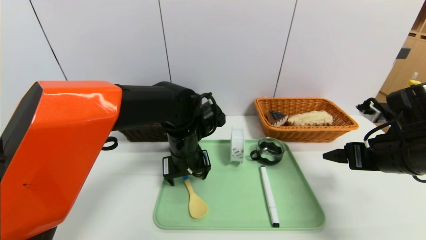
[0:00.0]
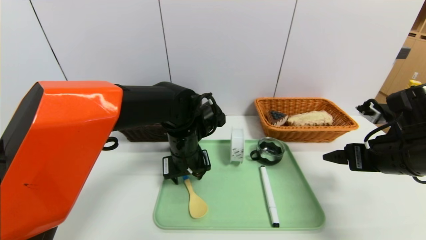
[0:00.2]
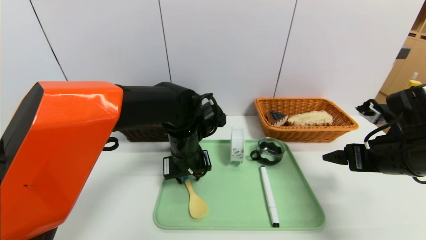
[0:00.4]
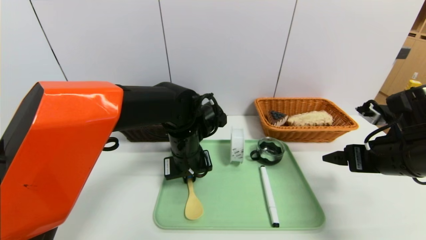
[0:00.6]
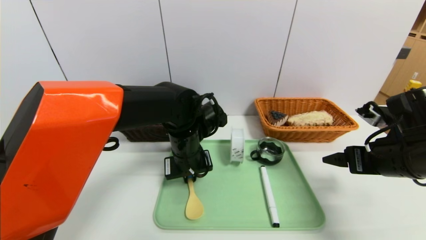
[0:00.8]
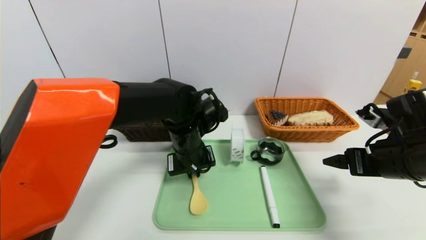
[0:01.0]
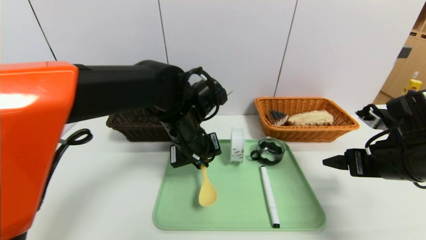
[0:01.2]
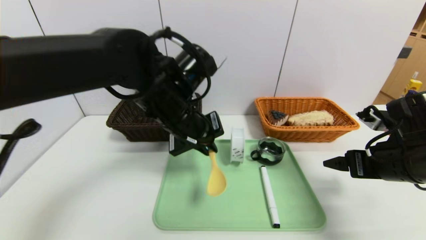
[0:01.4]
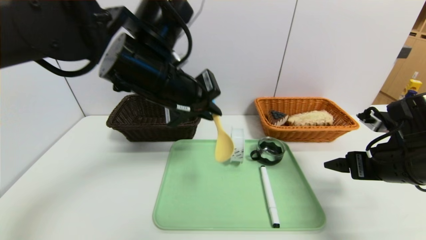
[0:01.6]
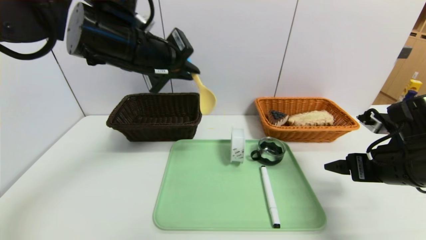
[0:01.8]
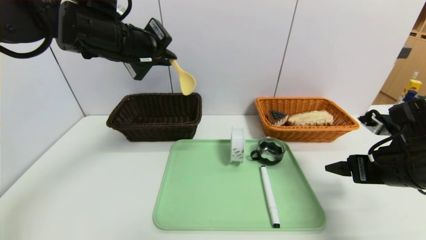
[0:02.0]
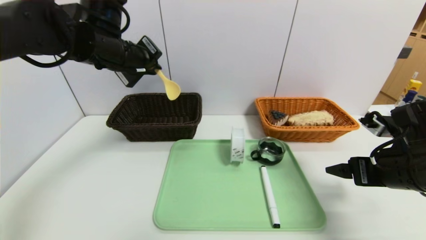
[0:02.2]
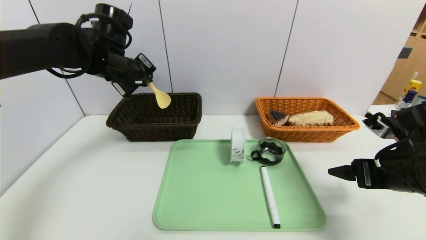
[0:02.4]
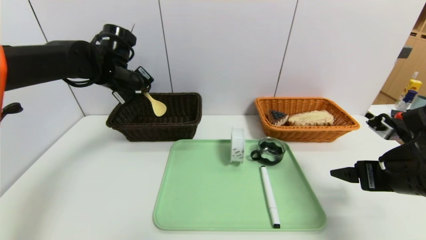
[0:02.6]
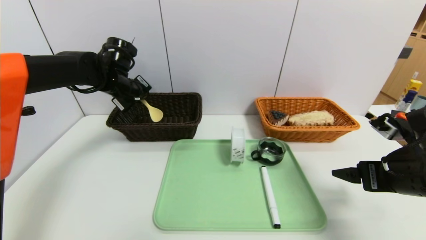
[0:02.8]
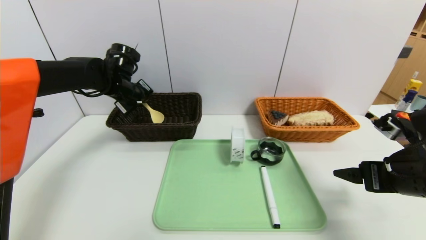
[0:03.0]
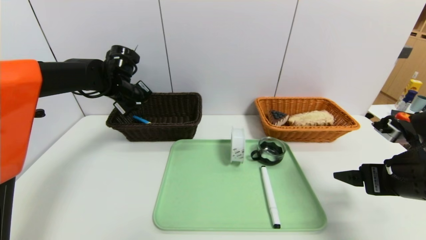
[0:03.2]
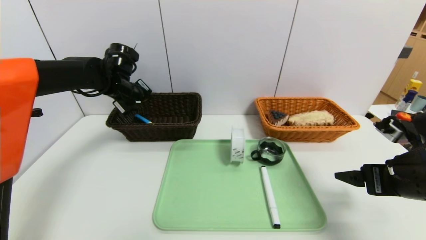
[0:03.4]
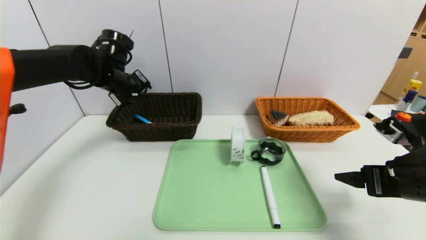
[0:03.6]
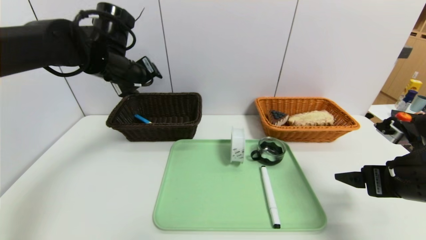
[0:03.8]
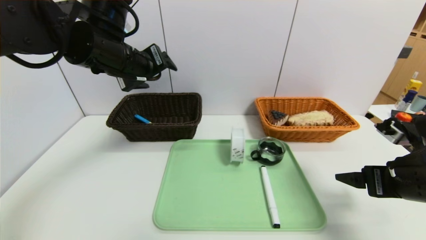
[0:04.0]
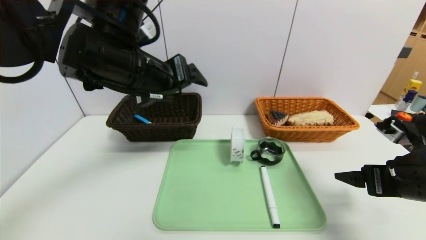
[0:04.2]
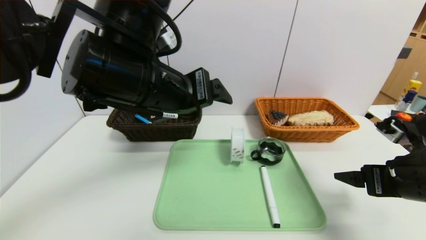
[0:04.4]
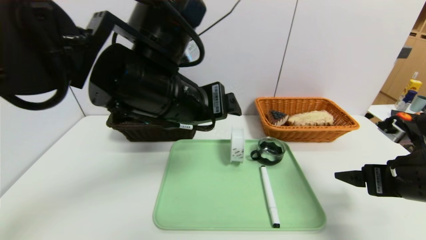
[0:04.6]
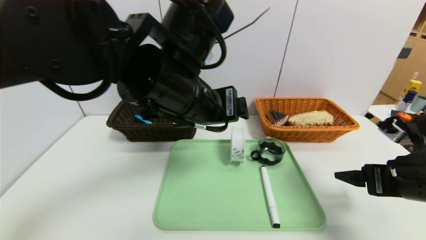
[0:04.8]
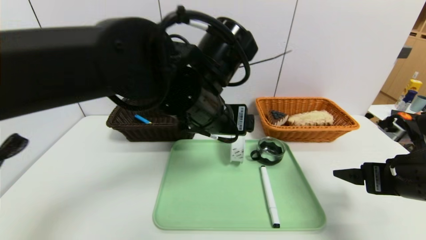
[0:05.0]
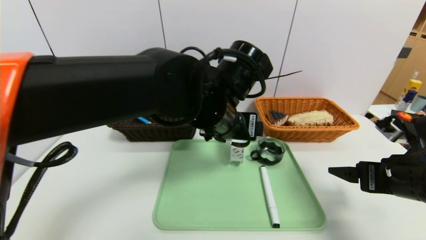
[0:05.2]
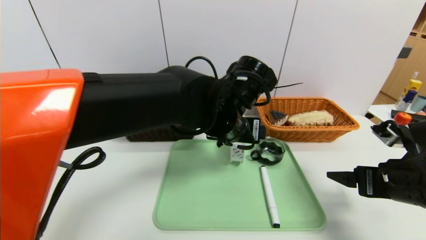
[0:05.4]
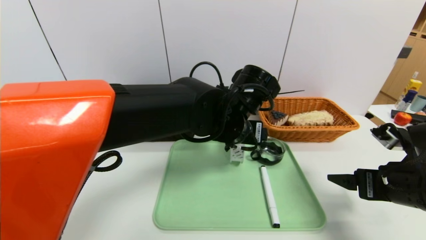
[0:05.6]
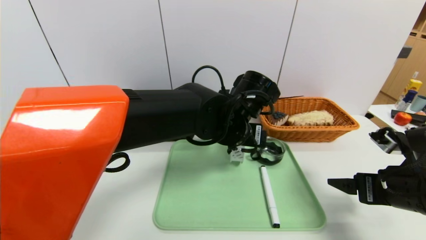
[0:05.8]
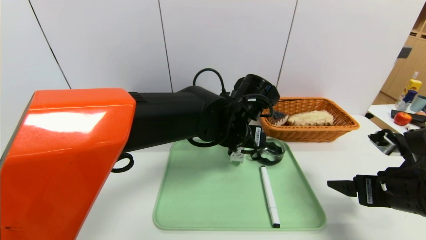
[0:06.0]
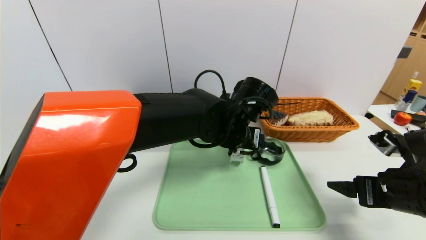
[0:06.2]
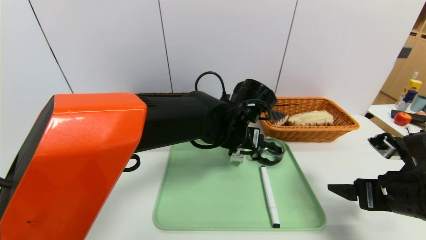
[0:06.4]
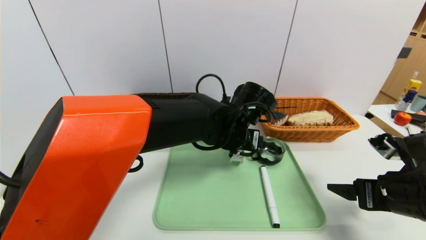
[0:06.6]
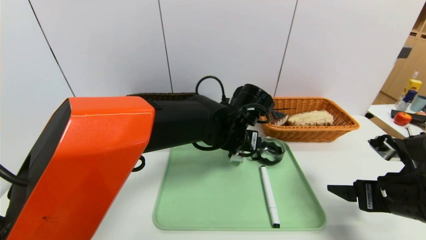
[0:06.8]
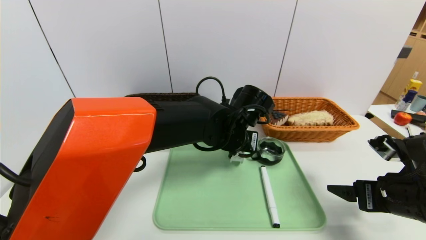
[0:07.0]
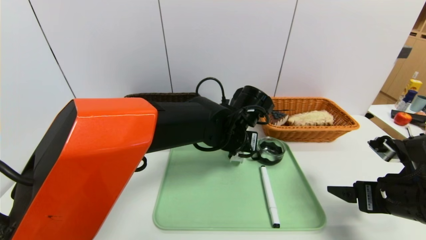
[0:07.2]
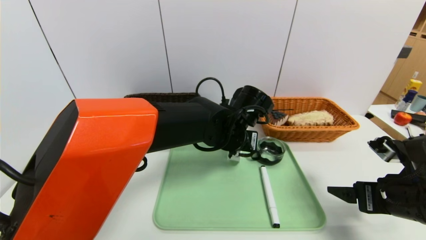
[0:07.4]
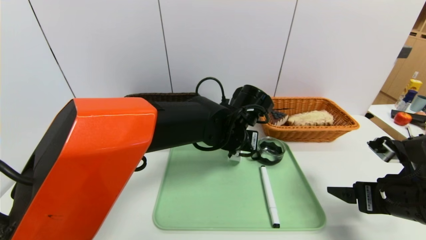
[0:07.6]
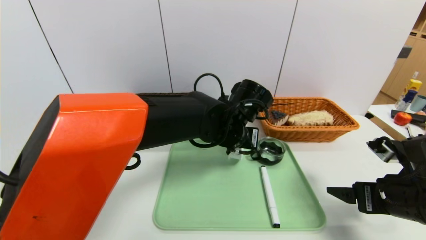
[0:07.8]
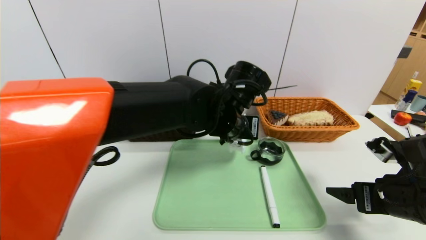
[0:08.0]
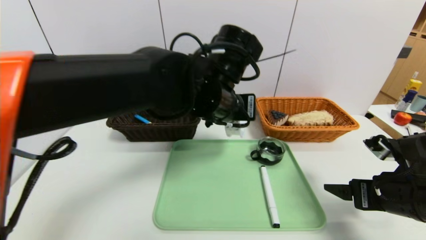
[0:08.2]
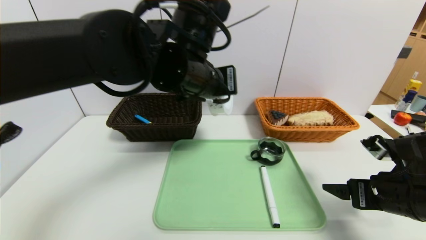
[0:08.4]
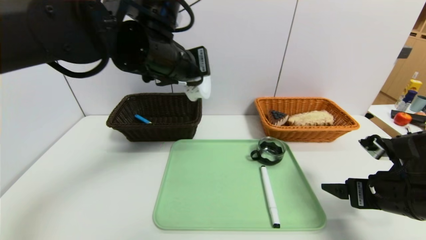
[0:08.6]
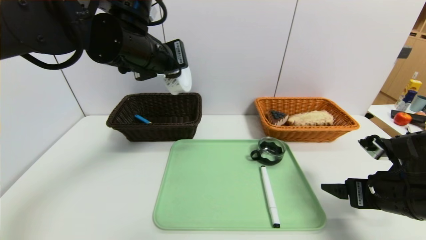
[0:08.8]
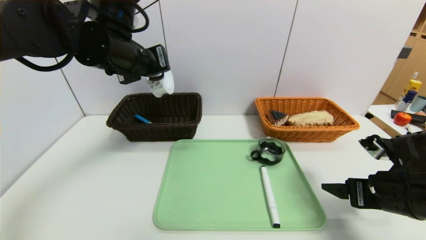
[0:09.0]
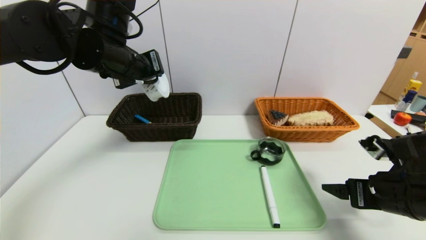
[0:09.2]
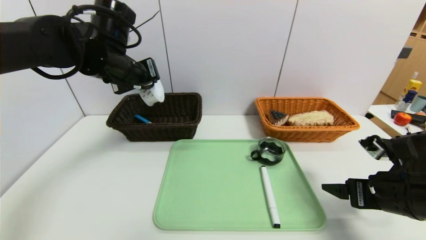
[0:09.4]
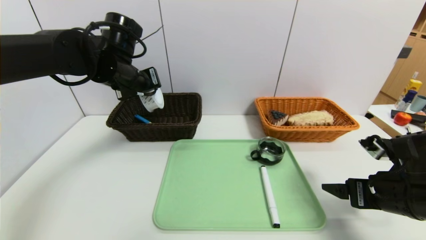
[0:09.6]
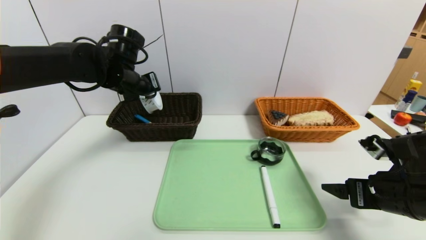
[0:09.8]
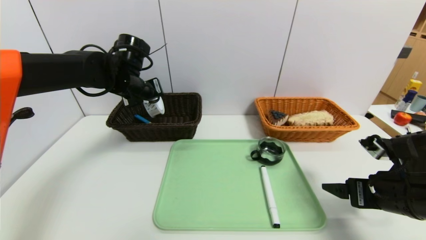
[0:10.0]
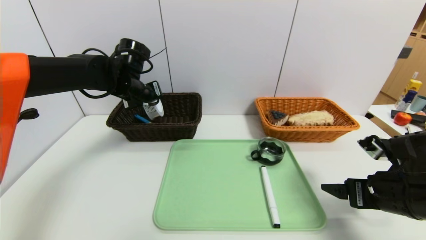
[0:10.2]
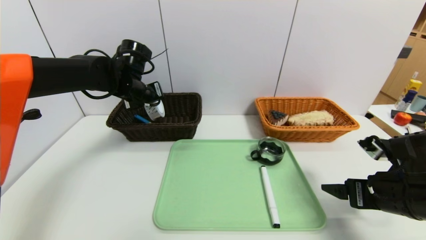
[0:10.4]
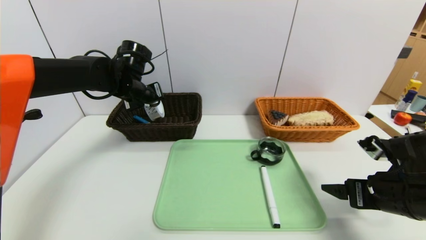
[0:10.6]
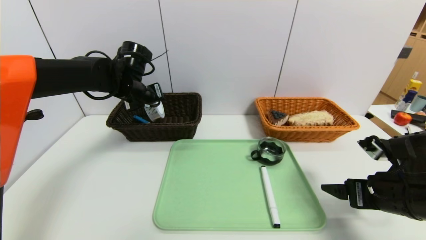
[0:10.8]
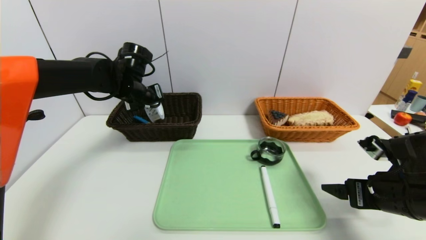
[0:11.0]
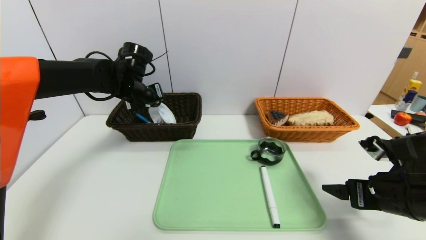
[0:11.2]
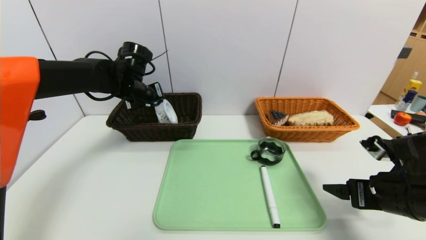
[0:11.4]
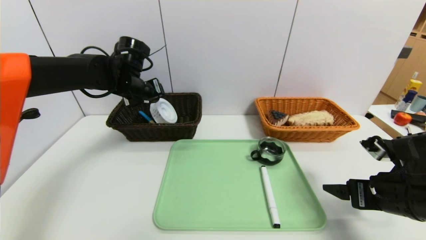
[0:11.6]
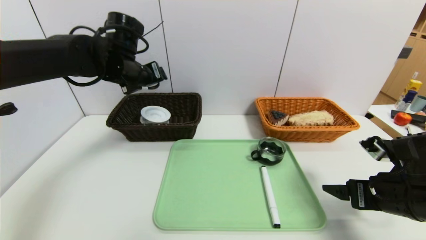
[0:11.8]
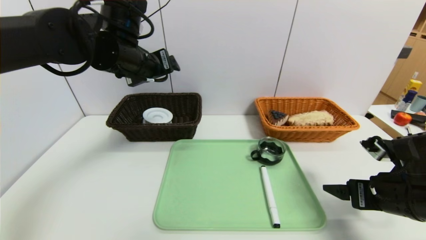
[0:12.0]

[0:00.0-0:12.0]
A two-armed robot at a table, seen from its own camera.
Task of the whole recording: place the food in the right basket with the right gripper, and place the non food items in the left basket with the left gripper.
Step, 0:00.0 to 0:03.2: Grasp the spoon and put it in the left basket.
Step, 0:03.4 to 0:11.8: Grasp the tape and put it in the left basket.
0:00.0 to 0:01.6: The left gripper is displaced upward by approximately 15 cm, and closes its fingers.
0:01.6 to 0:03.0: The left gripper is displaced forward, to the left and downward by approximately 25 cm.
0:03.0 to 0:04.4: The left gripper goes approximately 25 cm backward, to the right and upward, and opens its fingers.
0:04.4 to 0:06.0: The left gripper shifts about 20 cm to the right, downward and forward.
0:06.0 to 0:07.6: The left gripper closes its fingers.
0:07.6 to 0:09.0: The left gripper goes about 25 cm to the left and upward.
0:09.0 to 0:10.4: The left gripper heads forward and downward, covering approximately 15 cm.
0:10.4 to 0:12.0: The left gripper is displaced upward and backward by about 10 cm, and opens.

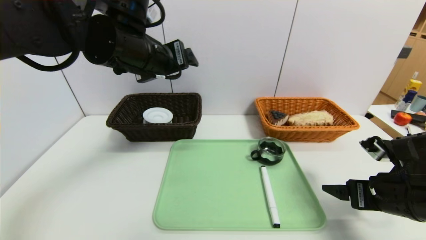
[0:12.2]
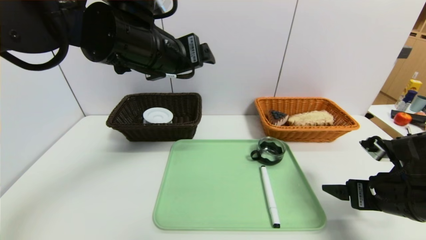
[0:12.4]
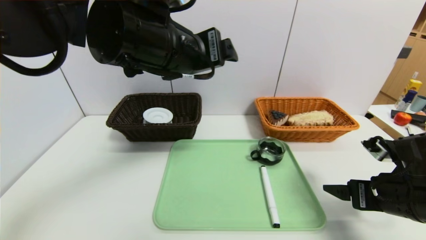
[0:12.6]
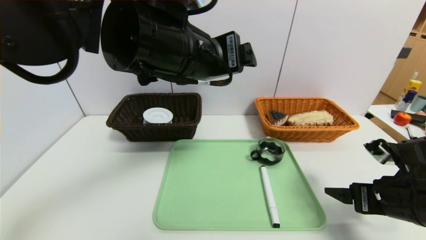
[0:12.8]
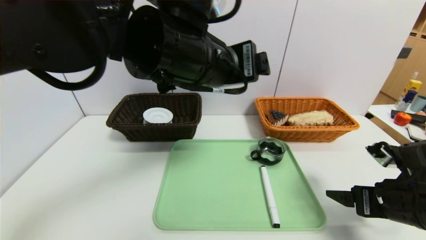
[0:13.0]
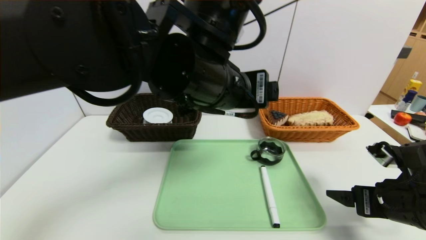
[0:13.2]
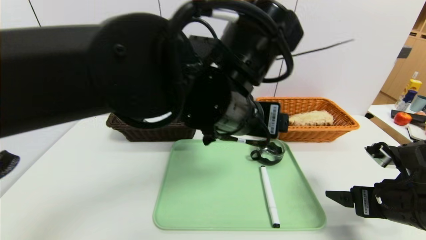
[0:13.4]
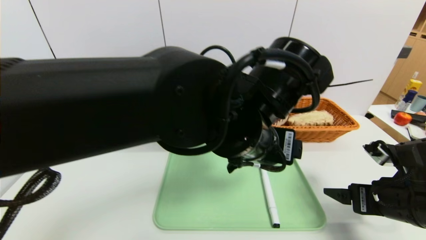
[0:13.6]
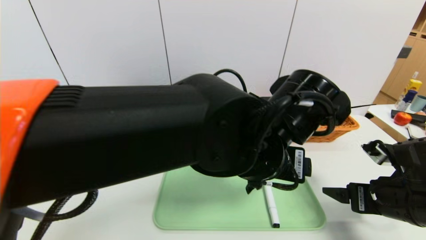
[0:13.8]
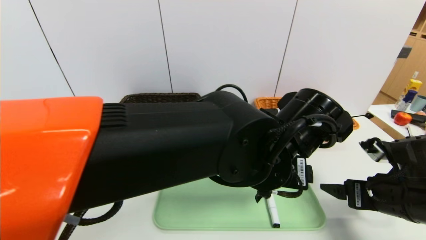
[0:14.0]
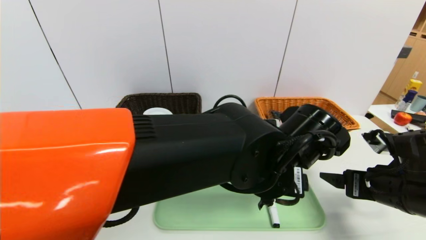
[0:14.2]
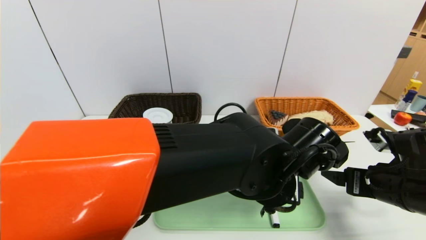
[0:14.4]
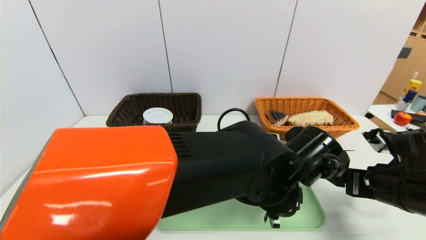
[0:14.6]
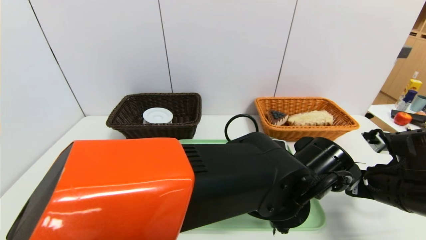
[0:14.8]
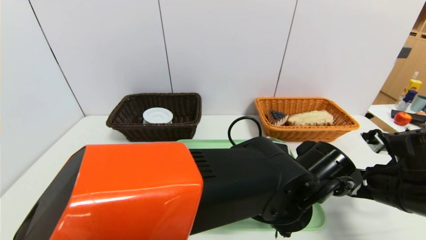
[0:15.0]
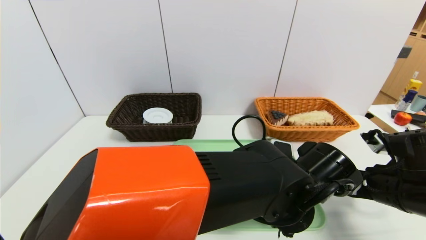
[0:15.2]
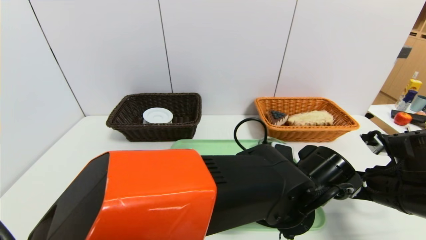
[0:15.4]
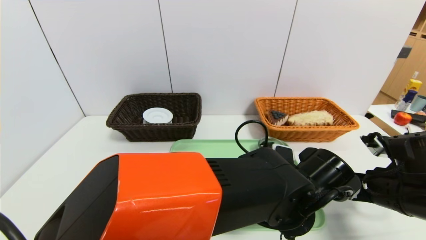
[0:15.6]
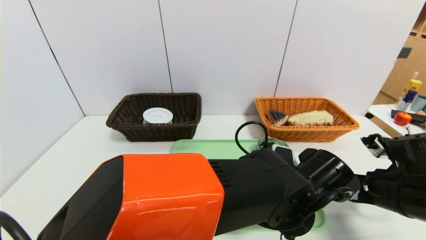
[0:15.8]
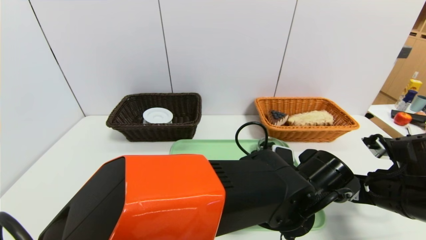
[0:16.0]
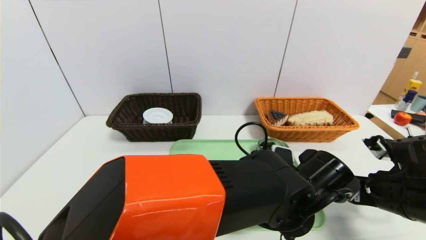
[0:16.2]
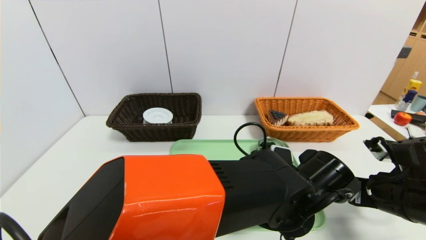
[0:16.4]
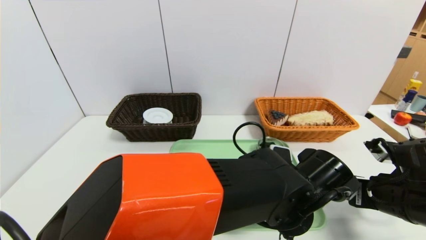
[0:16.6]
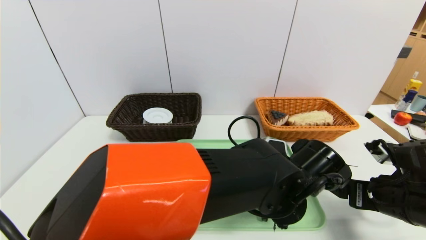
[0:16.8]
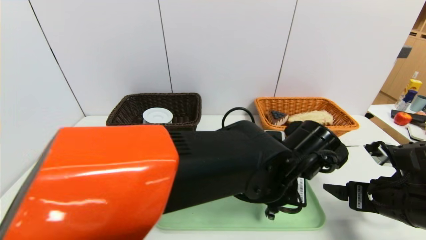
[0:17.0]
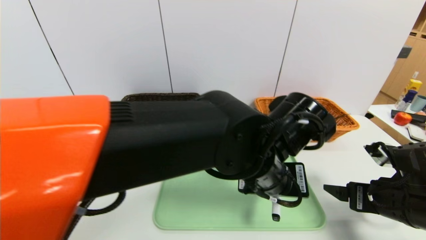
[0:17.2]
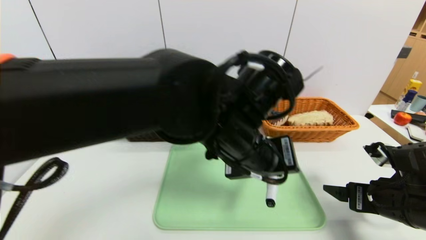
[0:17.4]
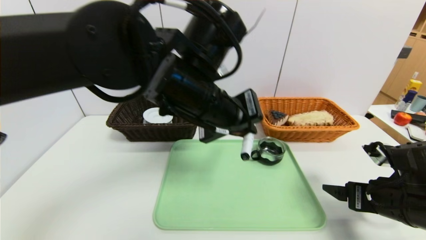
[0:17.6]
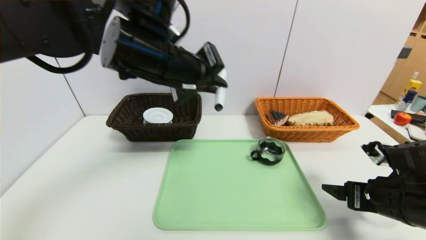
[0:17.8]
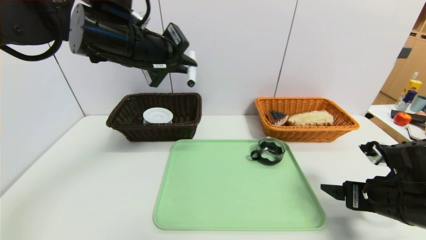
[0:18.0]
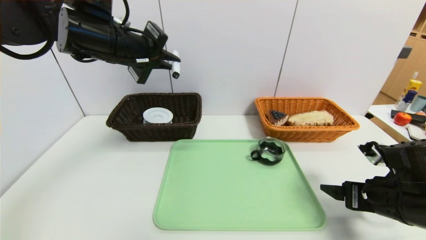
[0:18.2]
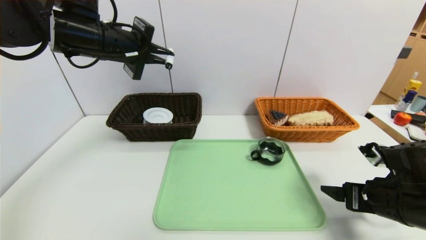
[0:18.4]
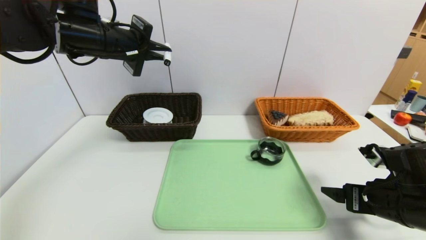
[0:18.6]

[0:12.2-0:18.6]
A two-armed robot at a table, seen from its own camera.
Task of the whole recording: place the food in the right basket with the right gripper, and place the non food items in the left basket with the left gripper.
0:12.2 to 0:13.8: The left gripper is displaced to the right, downward and backward by approximately 25 cm.
0:13.8 to 0:15.4: The left gripper heads downward, covering roughly 10 cm.
0:15.4 to 0:17.0: The left gripper closes.
0:17.0 to 0:18.6: The left gripper travels to the left, upward and forward by about 35 cm.
